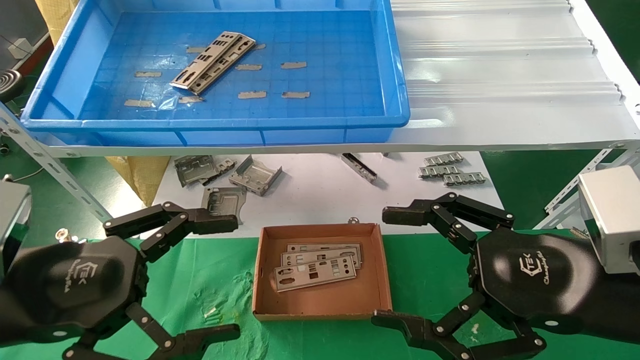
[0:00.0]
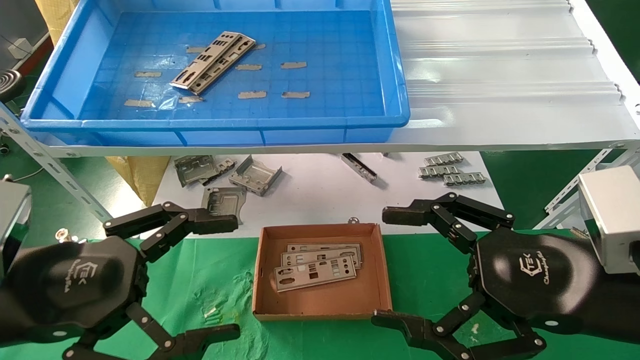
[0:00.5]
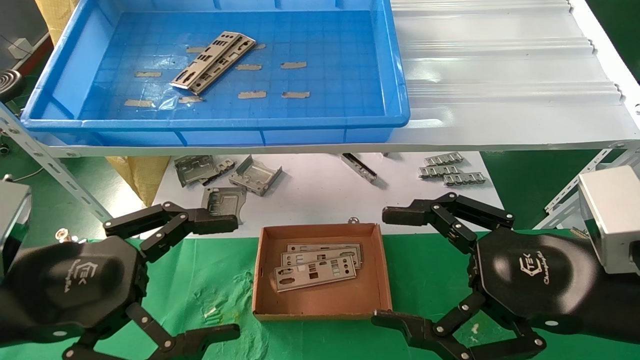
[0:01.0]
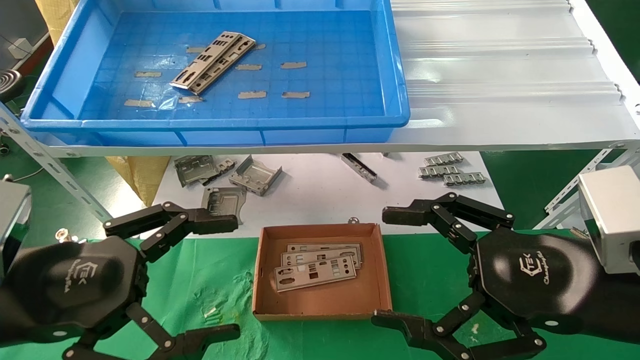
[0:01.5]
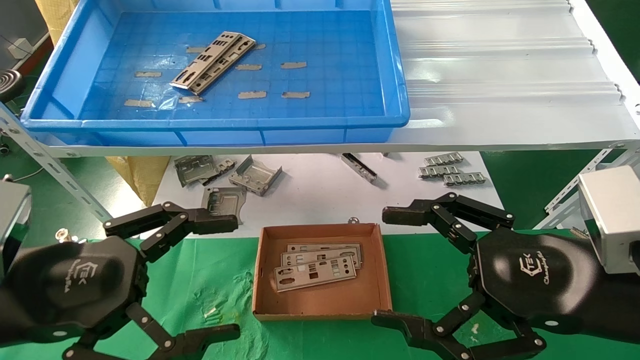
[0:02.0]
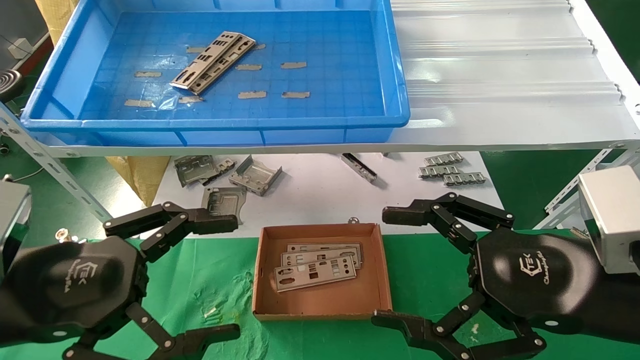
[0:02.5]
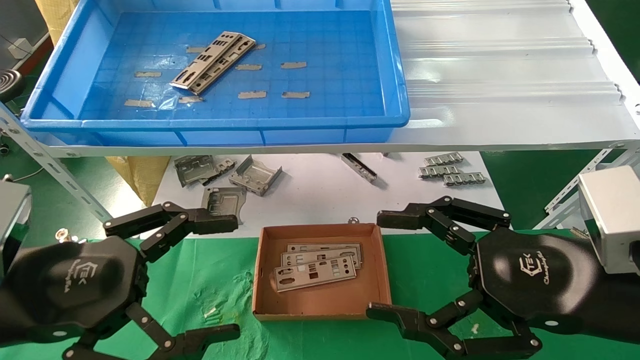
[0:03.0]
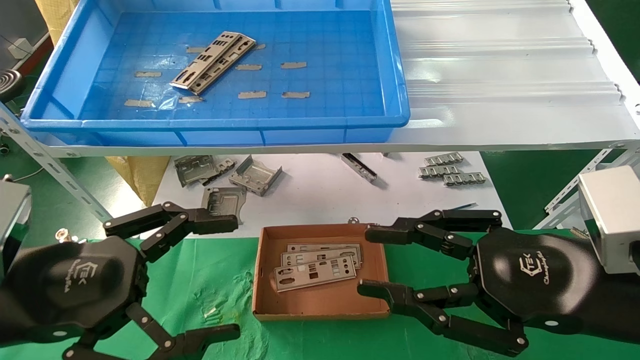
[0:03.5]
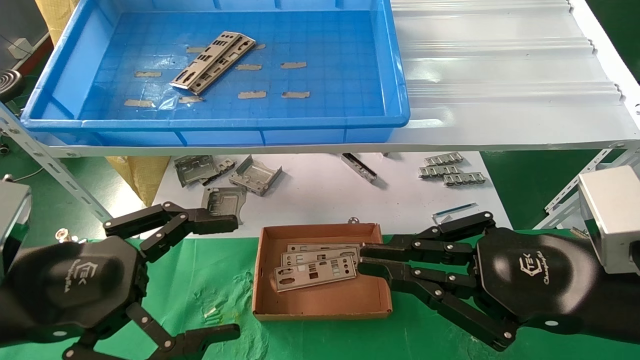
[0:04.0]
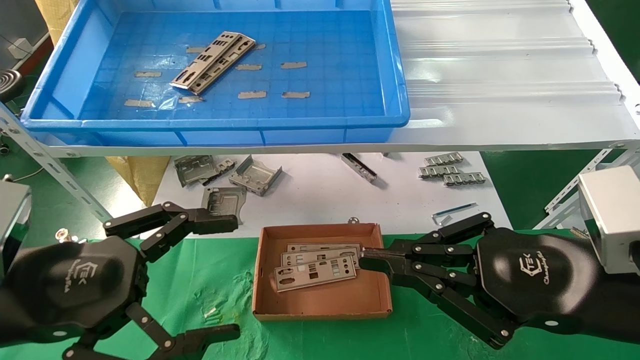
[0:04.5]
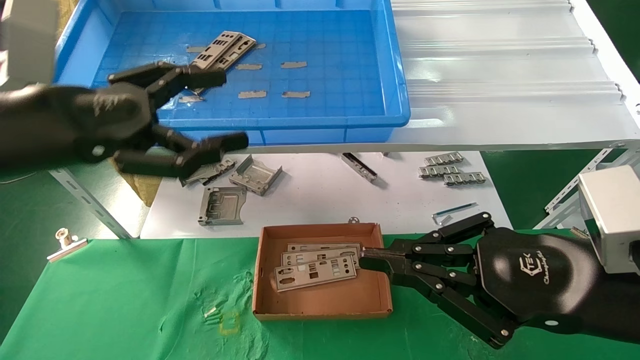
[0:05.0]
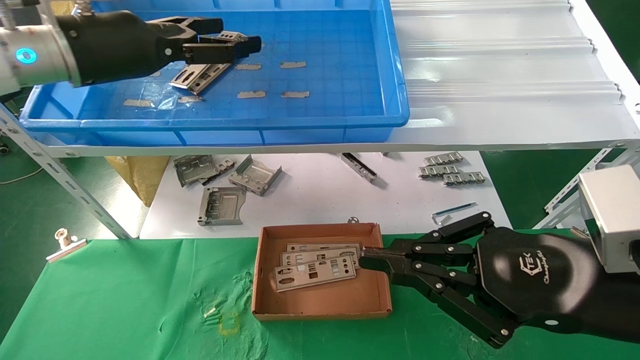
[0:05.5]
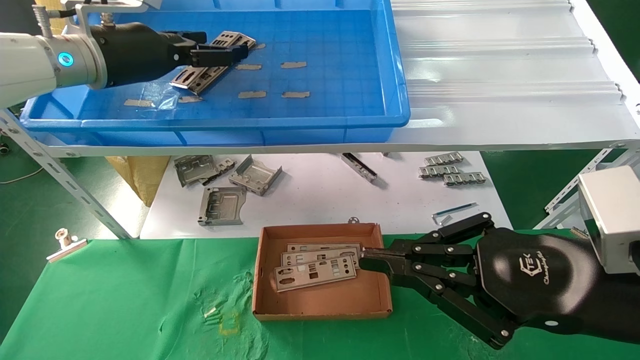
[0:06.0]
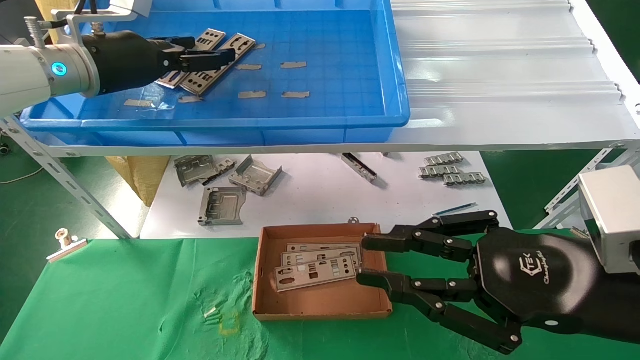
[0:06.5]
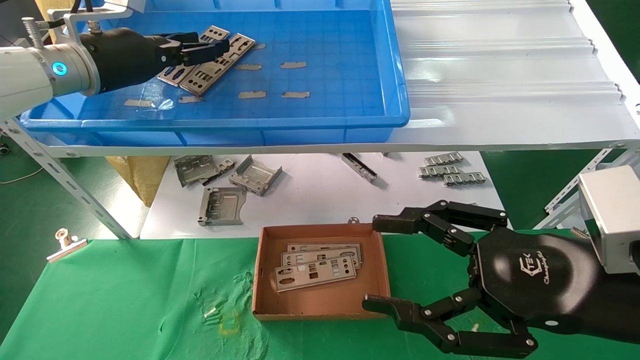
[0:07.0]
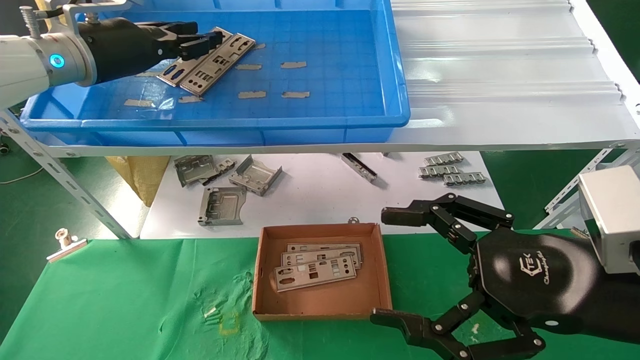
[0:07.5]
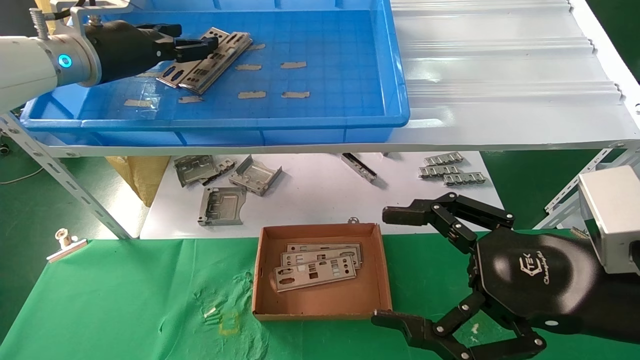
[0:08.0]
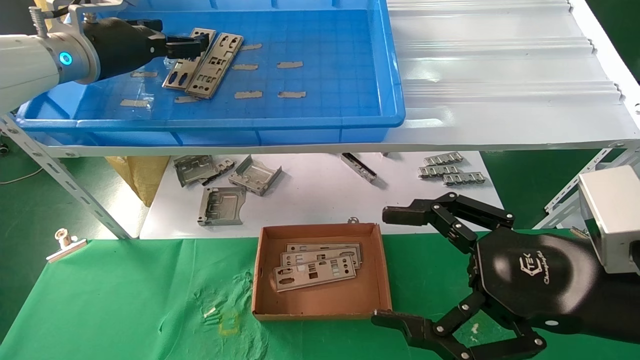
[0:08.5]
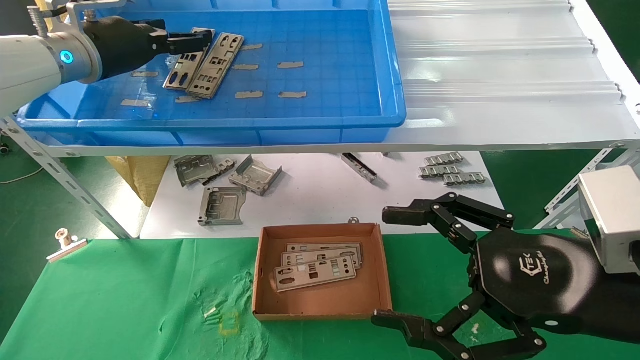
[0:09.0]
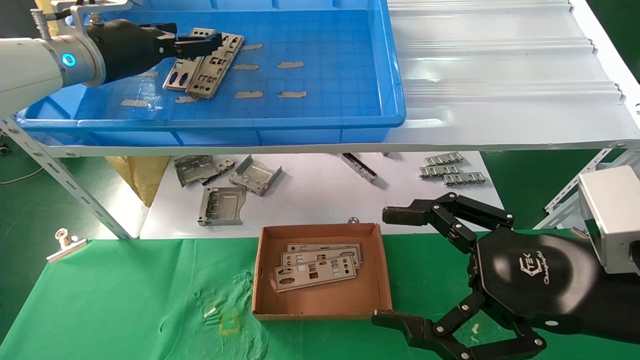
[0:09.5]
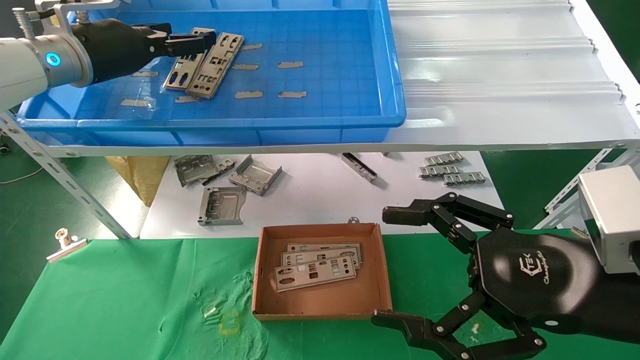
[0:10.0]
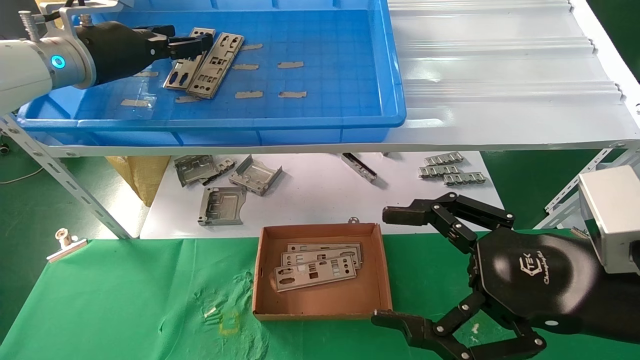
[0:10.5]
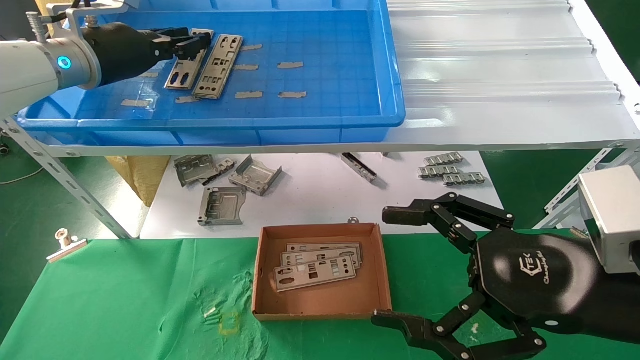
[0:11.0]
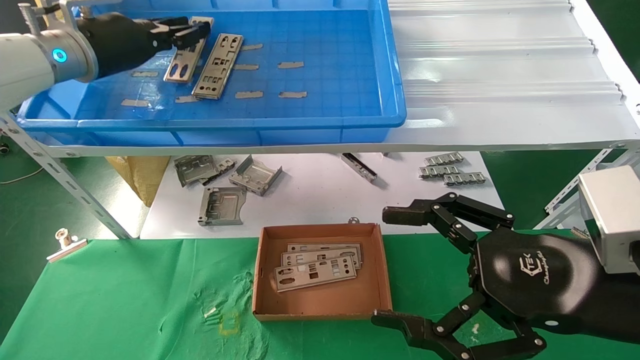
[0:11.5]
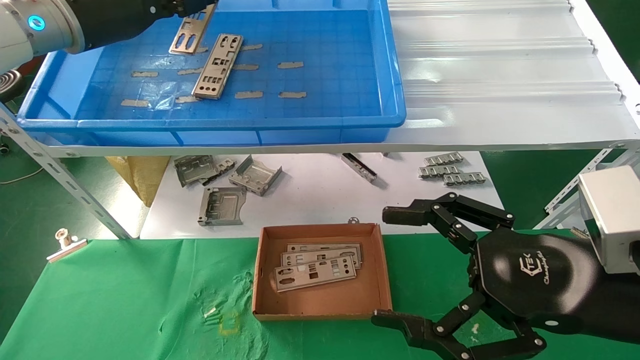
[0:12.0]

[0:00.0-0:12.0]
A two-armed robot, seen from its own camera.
Task of the whole recording: pick up the parts on the tray and put them in the cardboard box.
Step, 0:05.0 to 0:11.5: Pick up the IO bracket from the container box.
0:00.0 to 0:02.0: Both grippers stay put.
0:02.0 to 0:04.0: The right gripper closes its fingers.
0:04.0 to 0:06.0: The left gripper moves forward and upward, approximately 30 cm.
0:06.0 to 0:08.0: The right gripper opens. The left gripper closes its fingers.
0:08.0 to 0:10.0: The left gripper opens.
0:10.0 to 0:12.0: The left gripper moves about 5 cm, and closes up.

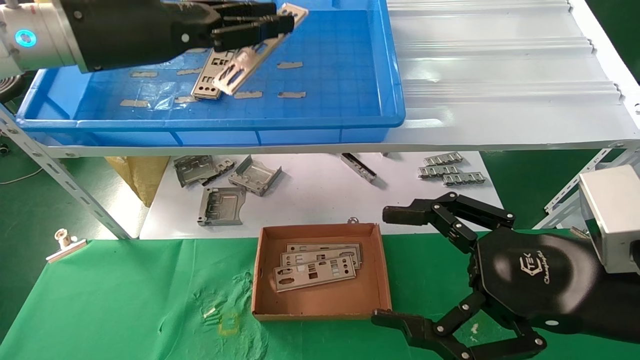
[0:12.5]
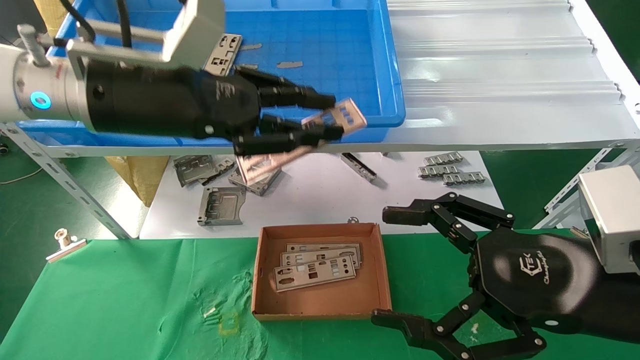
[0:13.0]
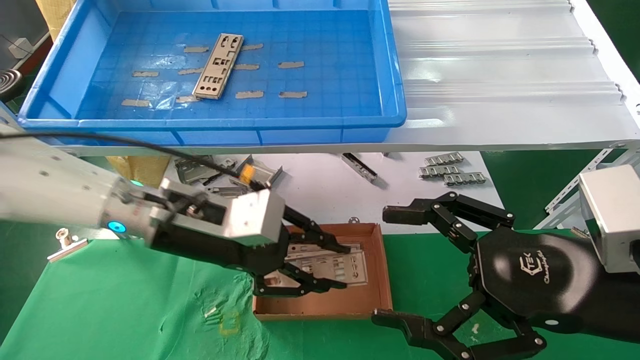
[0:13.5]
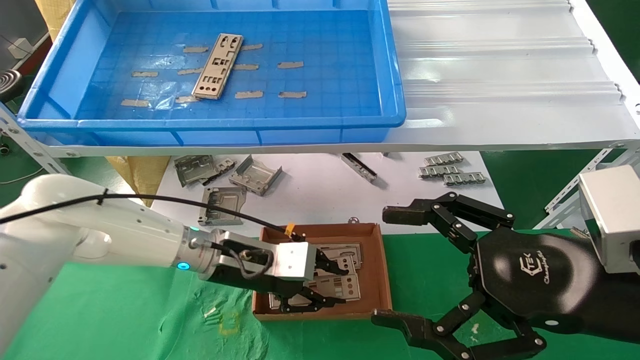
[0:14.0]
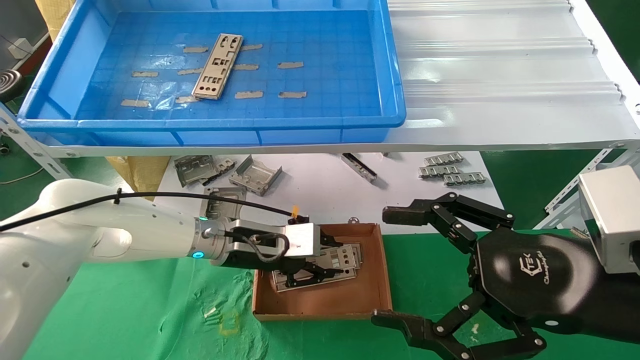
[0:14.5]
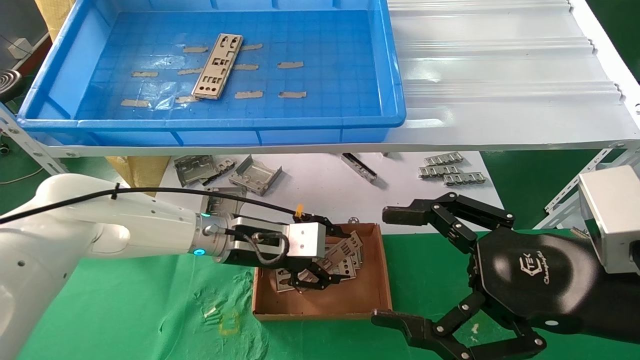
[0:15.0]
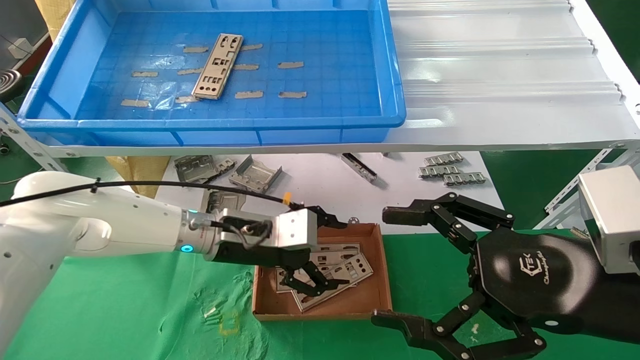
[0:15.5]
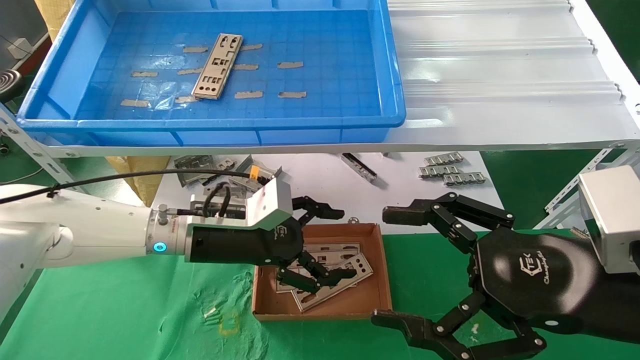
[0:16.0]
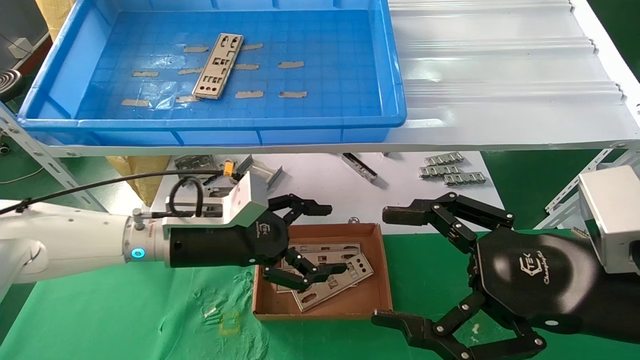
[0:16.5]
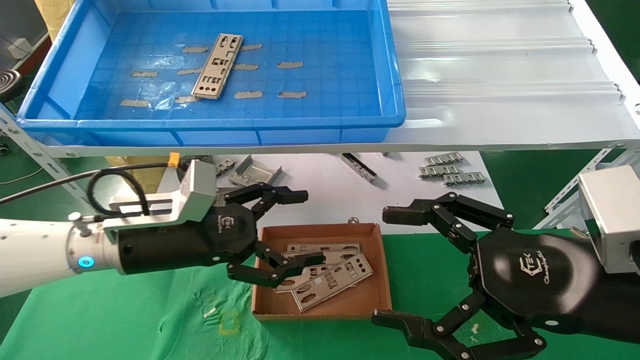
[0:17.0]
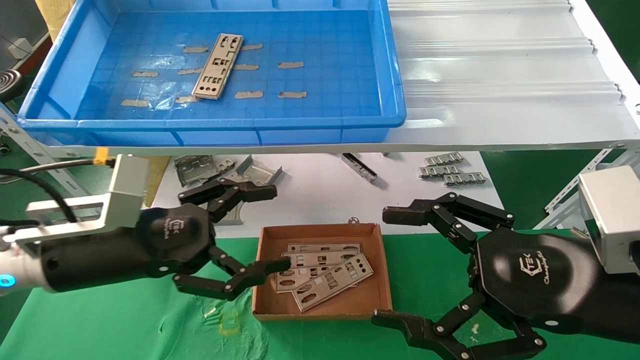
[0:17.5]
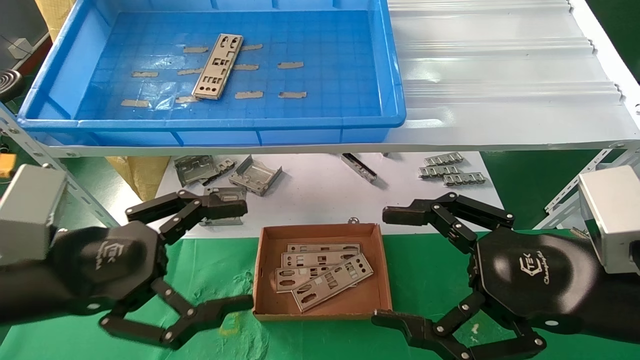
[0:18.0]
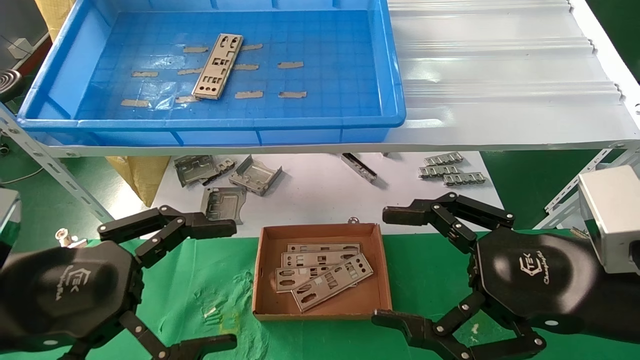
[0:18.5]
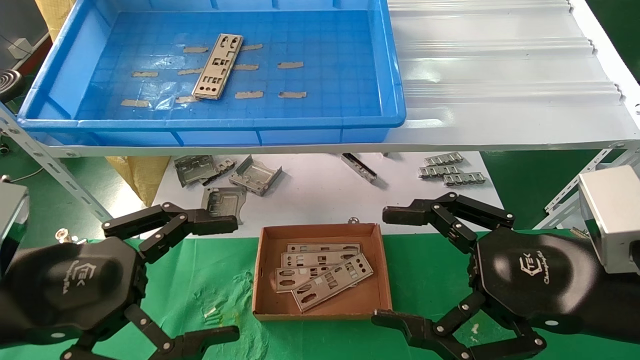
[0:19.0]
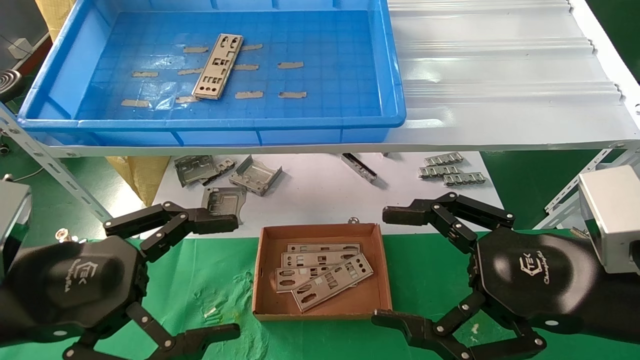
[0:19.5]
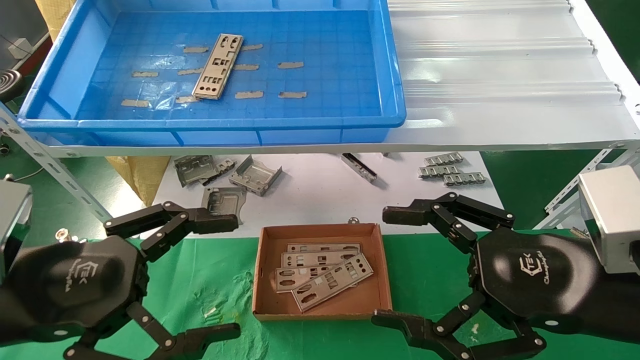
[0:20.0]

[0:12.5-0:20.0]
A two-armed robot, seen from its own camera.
Task of the whole recording: pick up the parts on the tray and put them in the cardboard box.
Step, 0:12.5 to 0:15.0: Place the IO bracket into the ingredient slot.
0:12.5 to 0:14.5: The left gripper heads downward, covering some 25 cm.
0:14.5 to 0:16.5: The left gripper travels backward by roughly 5 cm, and opens its fingers.
0:16.5 to 0:18.0: The left gripper is displaced backward and to the left by roughly 20 cm.
0:18.0 to 0:20.0: The grippers move only a little.
